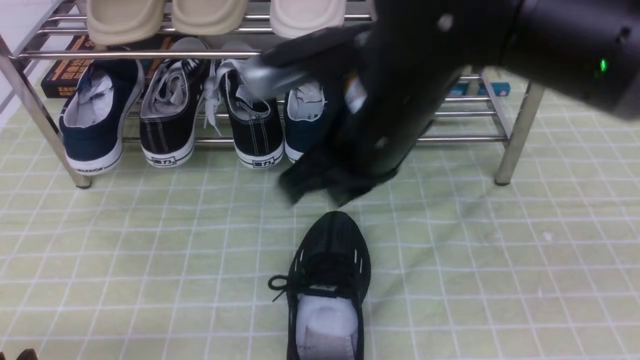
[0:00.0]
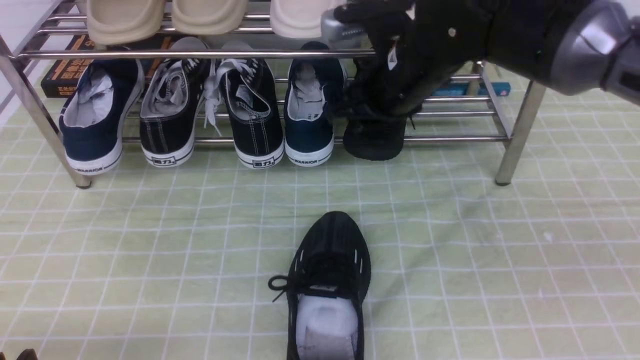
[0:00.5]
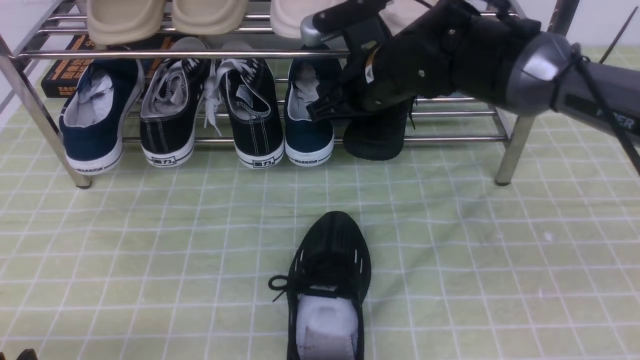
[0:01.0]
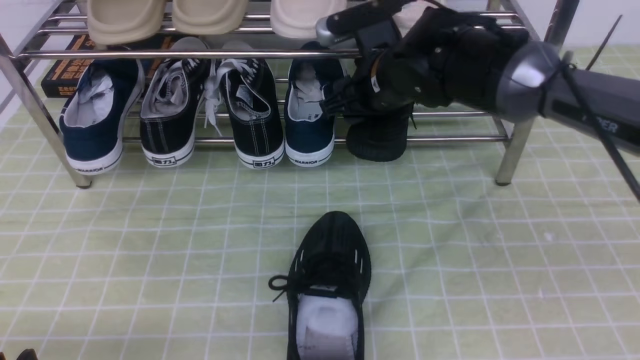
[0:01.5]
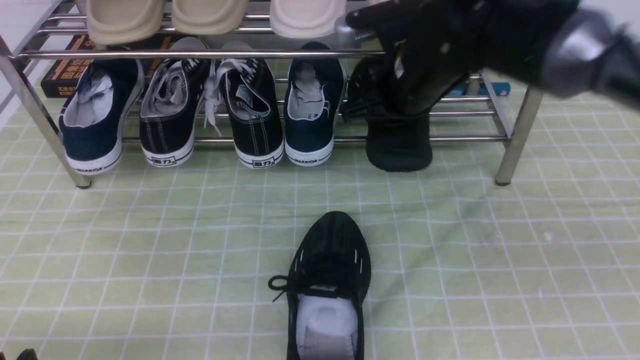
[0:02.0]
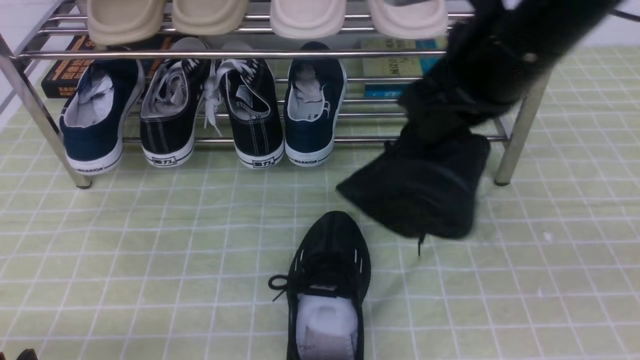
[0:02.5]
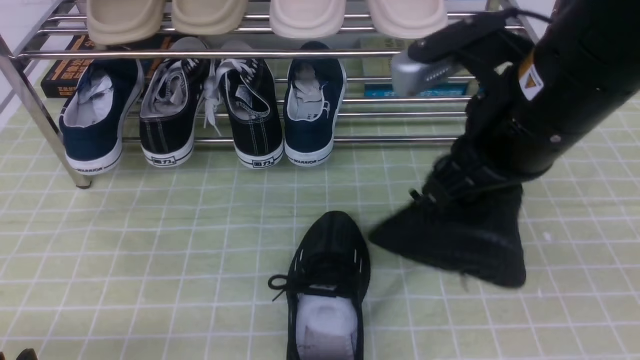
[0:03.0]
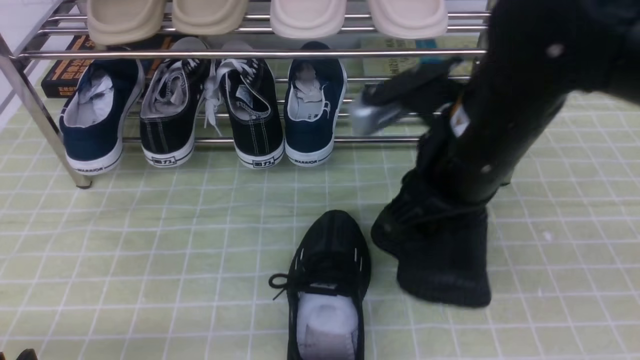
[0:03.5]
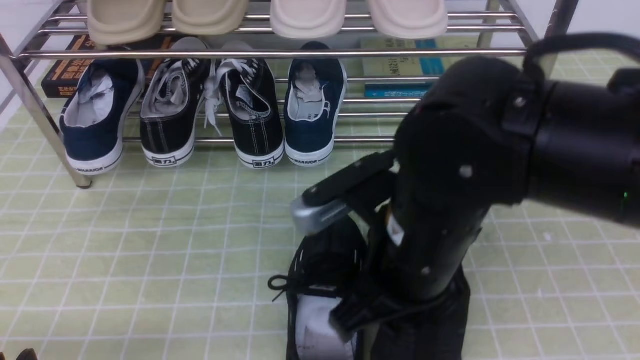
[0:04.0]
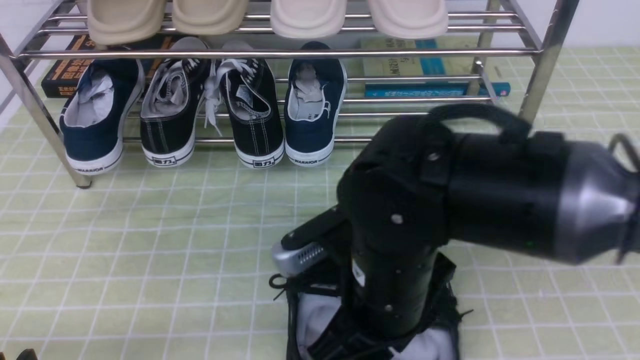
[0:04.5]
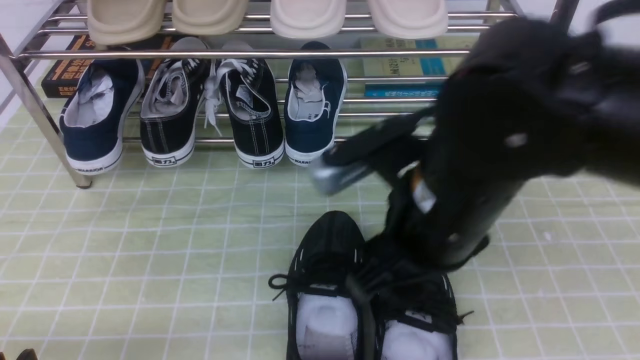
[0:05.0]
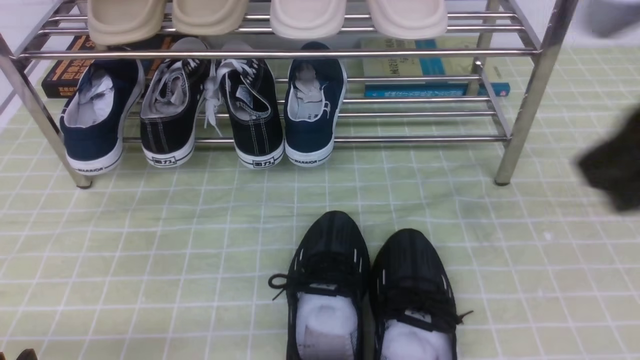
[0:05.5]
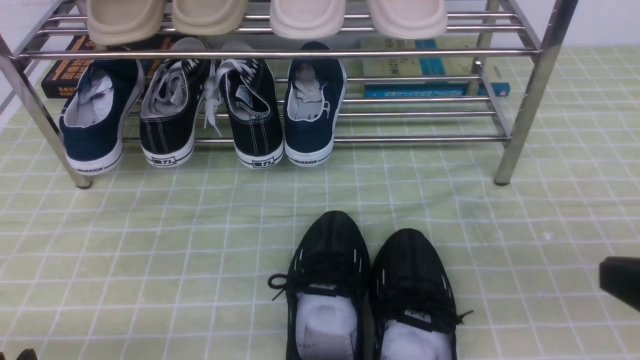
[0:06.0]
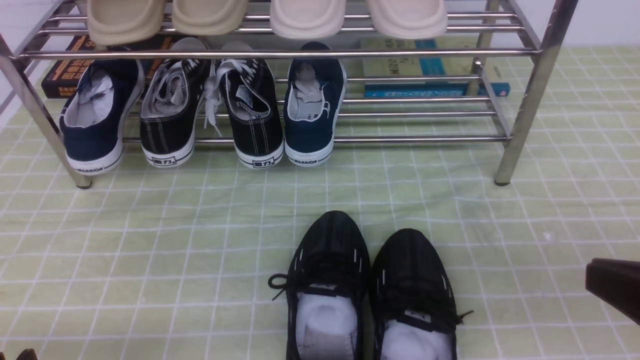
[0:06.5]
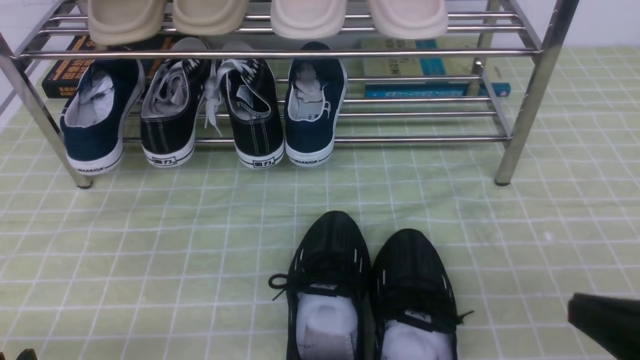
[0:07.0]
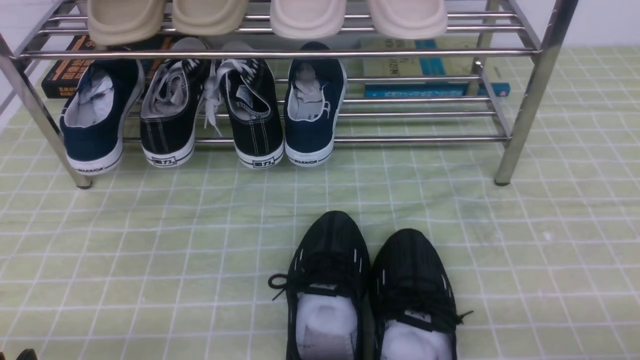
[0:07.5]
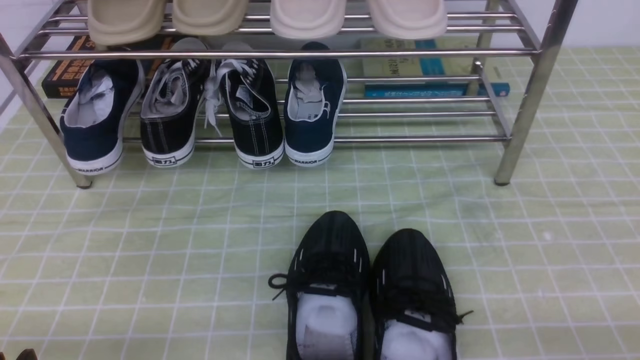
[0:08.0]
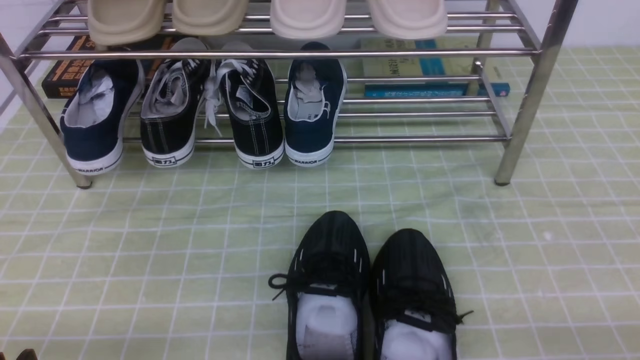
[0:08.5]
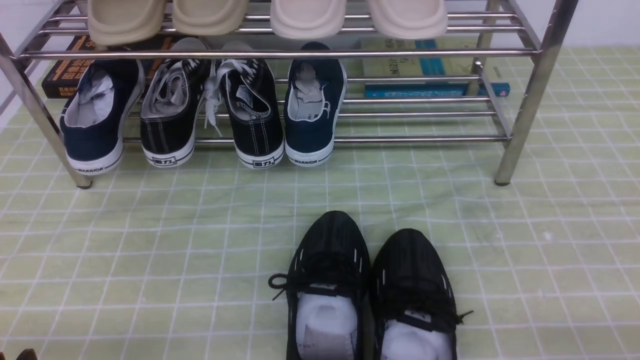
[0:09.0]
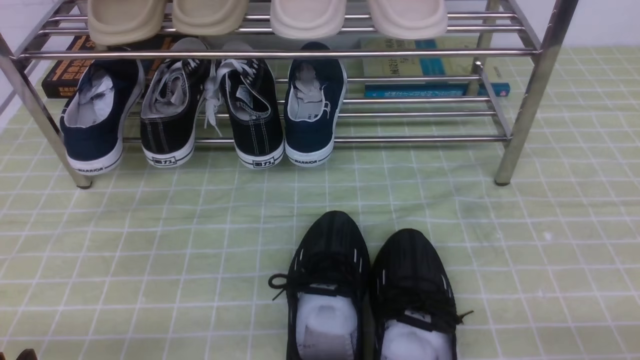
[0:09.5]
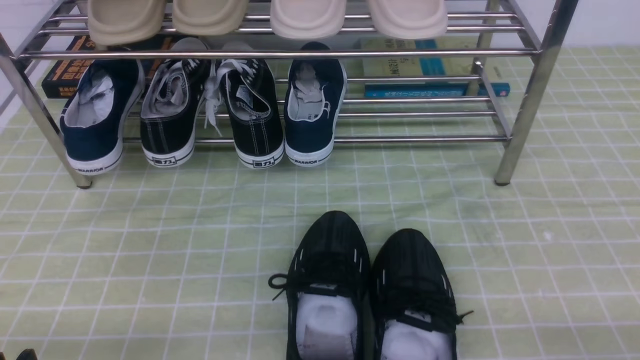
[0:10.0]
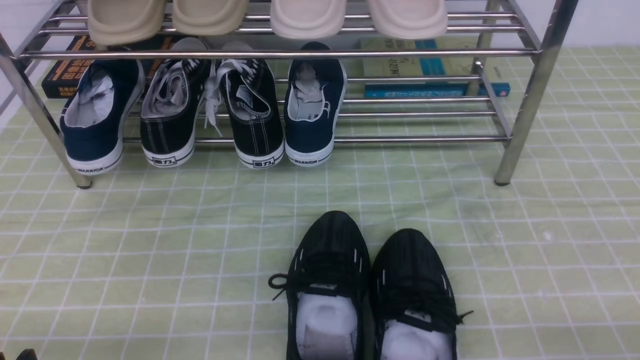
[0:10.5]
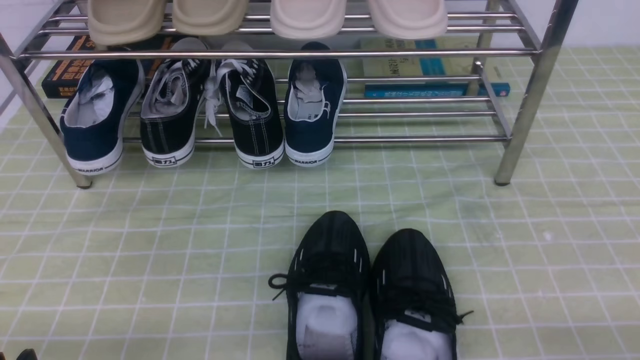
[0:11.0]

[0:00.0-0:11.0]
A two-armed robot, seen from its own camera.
Step, 0:00.0 to 0:01.5: use the right arm to clamp a shoe on the right side of the shoe rack.
Step, 0:02.0 to 0:05.0: use the right arm to take out the clamped shoe from the shoe rack and put it down.
0:00.0 to 0:02.0: The right gripper goes roughly 10 cm forward and to the right, and opens and closes again.
0:02.0 to 0:03.5: The right gripper goes some 10 cm backward.
0:03.5 to 0:05.5: The right gripper travels to the right, backward and upward by some 20 cm, and opens, then closes once more.
0:05.5 to 0:07.5: The right gripper heads downward and to the right, covering some 25 cm.
0:09.0 to 0:11.0: Both grippers stay about where they are.
